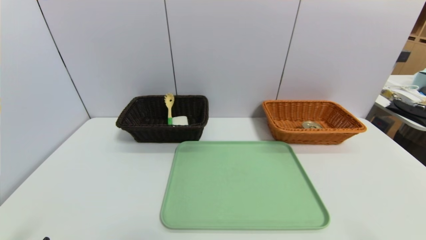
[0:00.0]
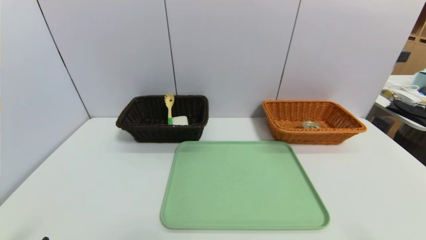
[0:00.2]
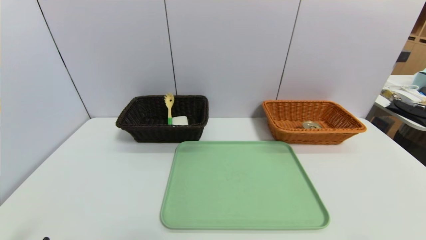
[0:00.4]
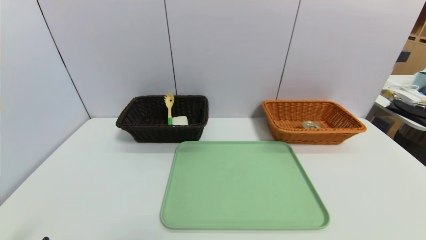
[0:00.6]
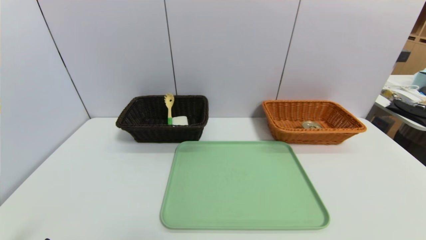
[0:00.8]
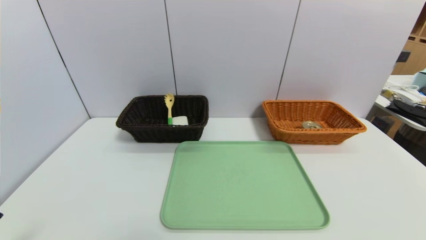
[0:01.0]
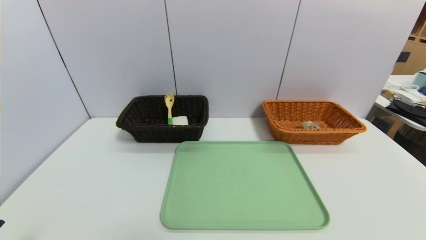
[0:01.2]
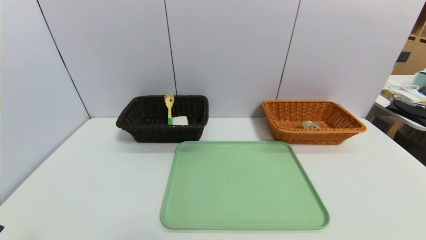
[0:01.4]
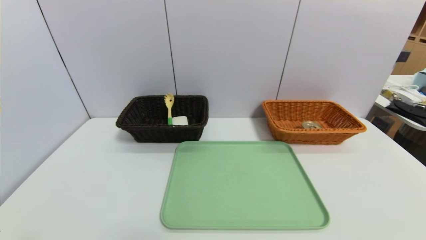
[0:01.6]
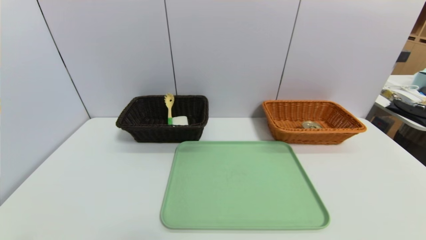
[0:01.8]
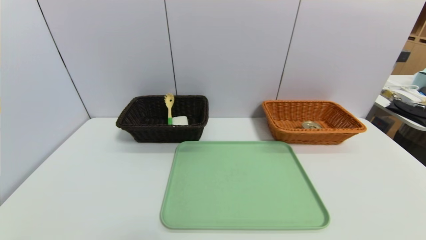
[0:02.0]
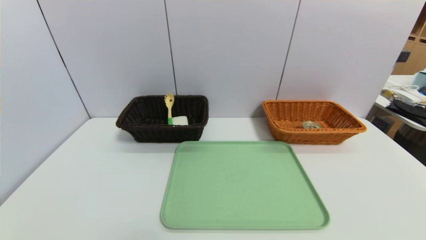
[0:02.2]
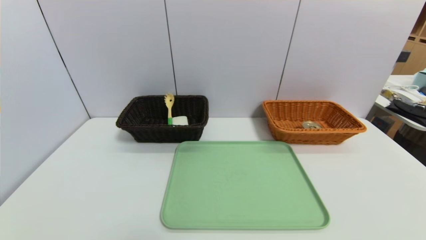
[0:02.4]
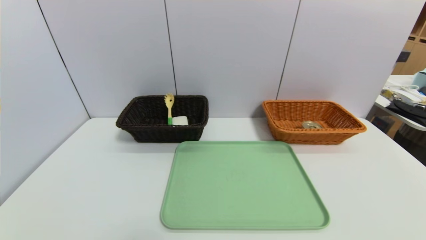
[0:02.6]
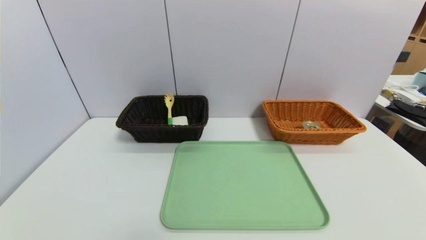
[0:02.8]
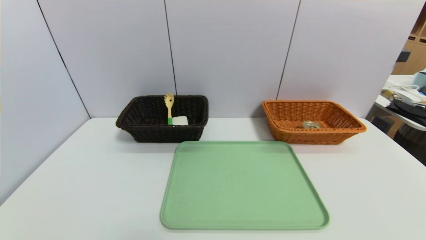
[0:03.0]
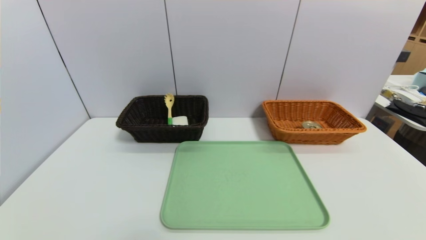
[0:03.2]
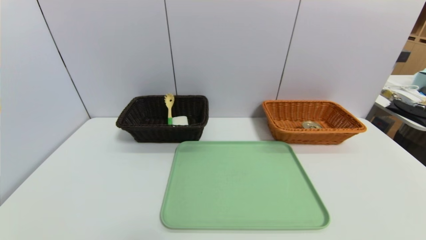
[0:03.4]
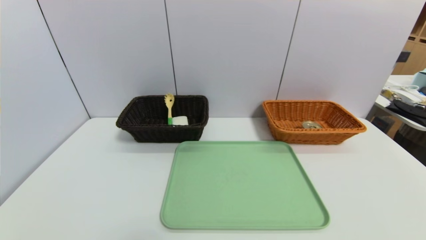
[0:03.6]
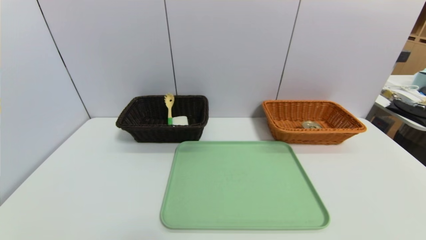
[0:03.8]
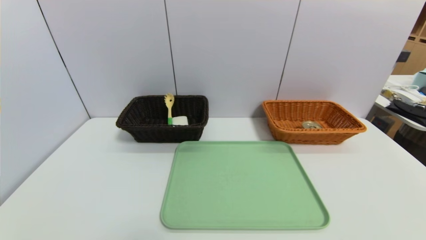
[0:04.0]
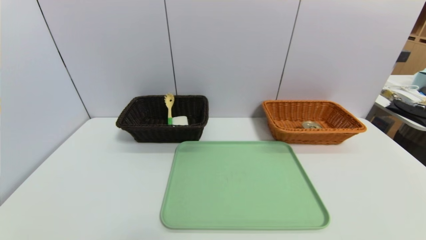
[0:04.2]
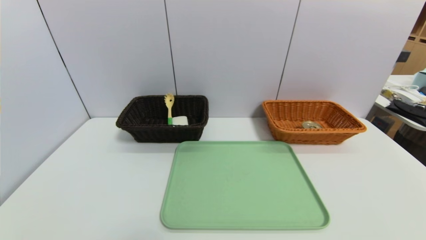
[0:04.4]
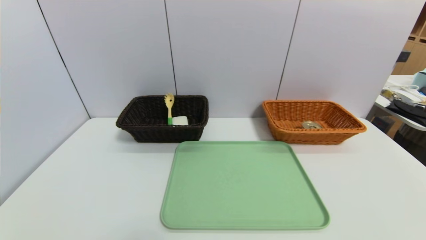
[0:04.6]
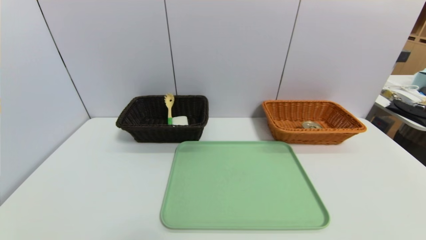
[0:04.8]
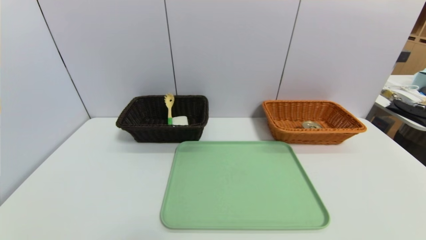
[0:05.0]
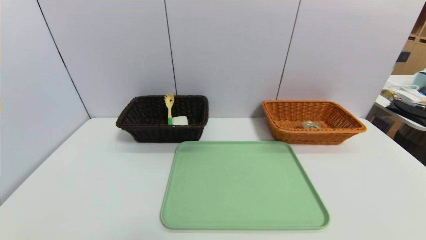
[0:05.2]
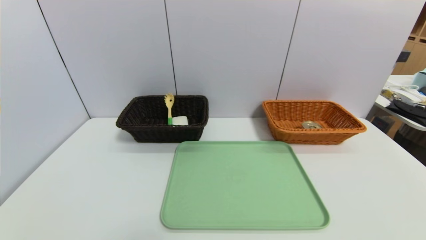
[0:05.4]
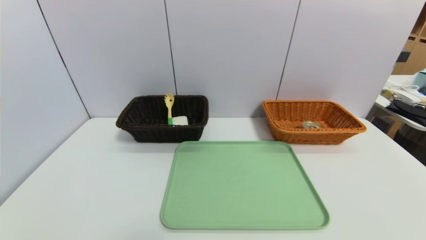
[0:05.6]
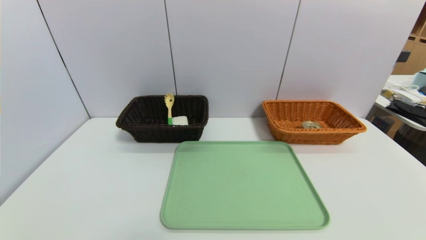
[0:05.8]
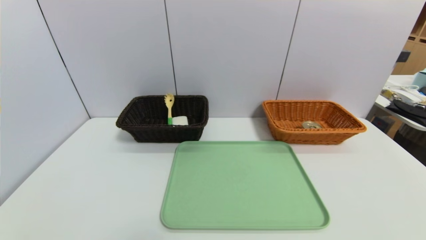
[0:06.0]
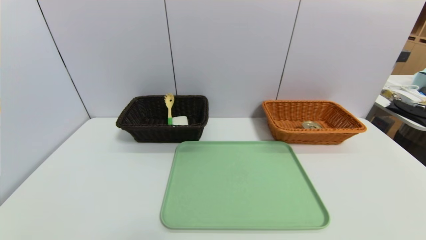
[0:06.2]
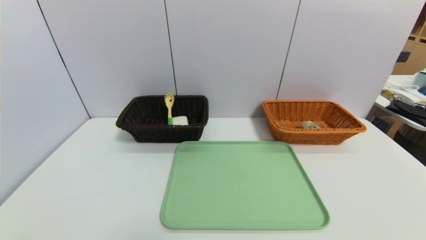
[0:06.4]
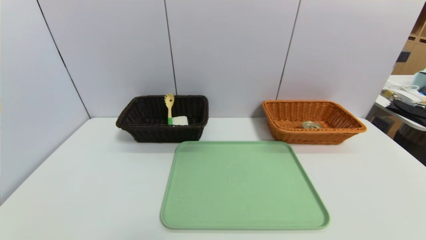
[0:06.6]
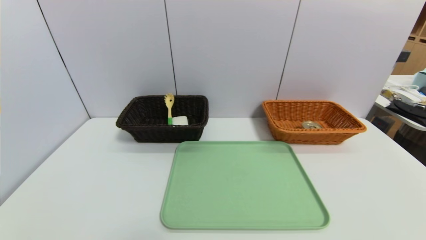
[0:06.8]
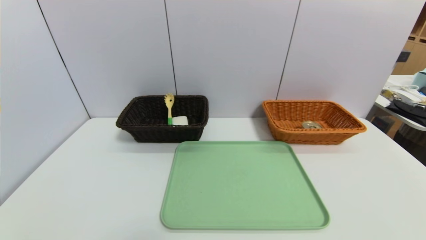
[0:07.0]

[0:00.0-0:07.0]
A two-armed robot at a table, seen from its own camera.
Task of the whole recording: place the food in the right basket with the right gripper, and place the non food items in the left basket with the left gripper.
0:05.6 to 0:07.0: The two grippers keep their place.

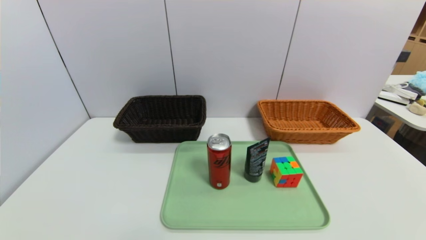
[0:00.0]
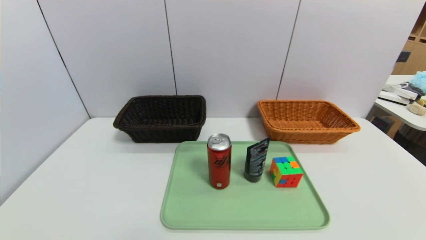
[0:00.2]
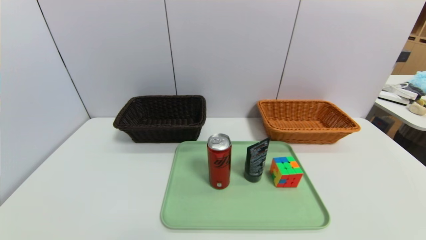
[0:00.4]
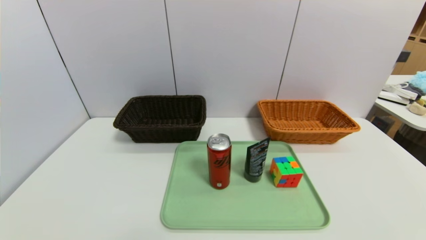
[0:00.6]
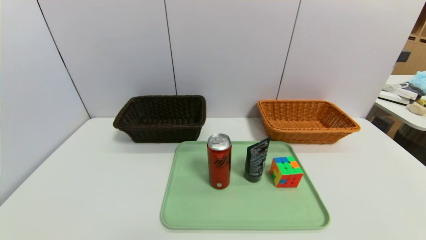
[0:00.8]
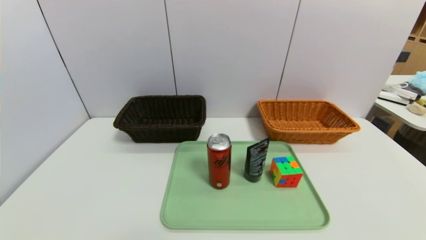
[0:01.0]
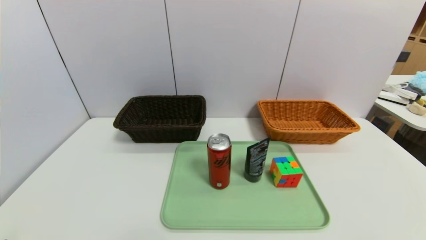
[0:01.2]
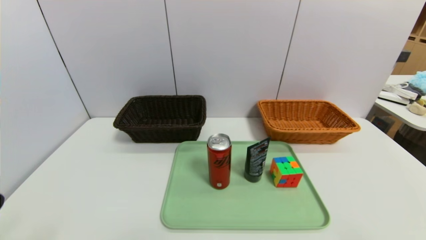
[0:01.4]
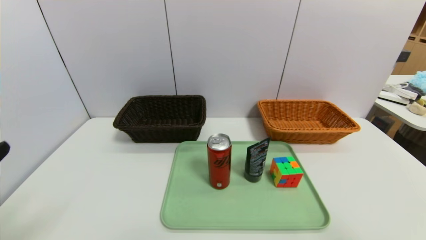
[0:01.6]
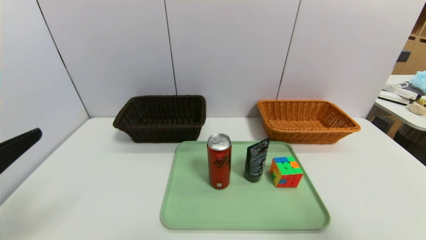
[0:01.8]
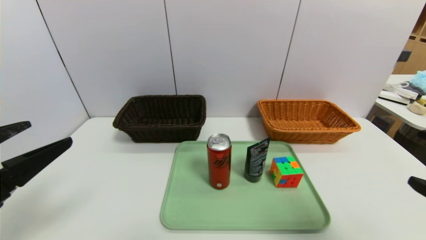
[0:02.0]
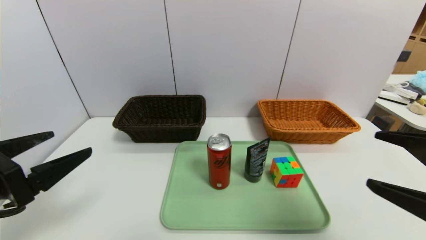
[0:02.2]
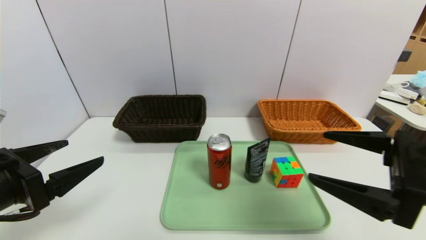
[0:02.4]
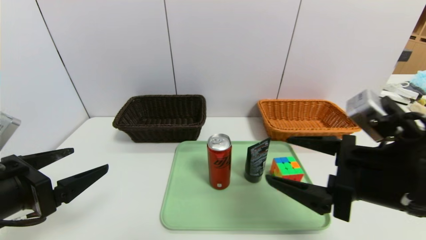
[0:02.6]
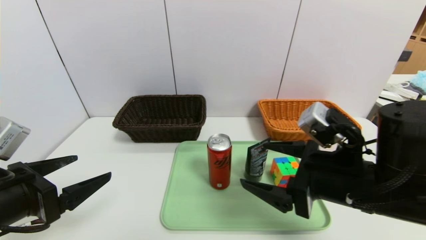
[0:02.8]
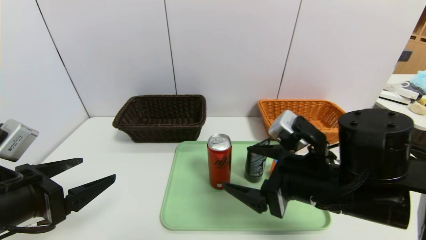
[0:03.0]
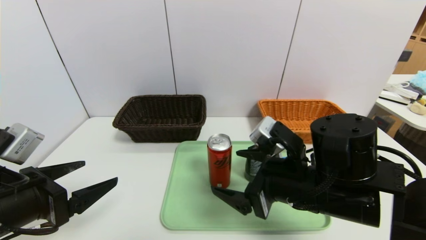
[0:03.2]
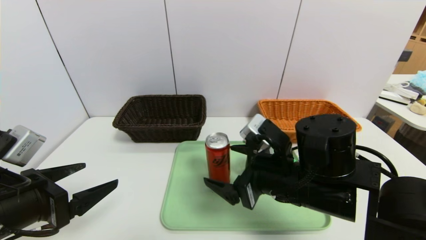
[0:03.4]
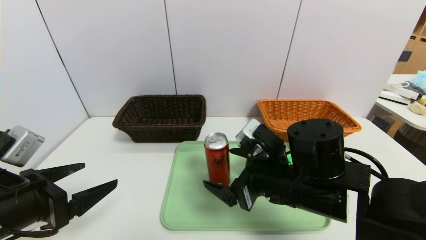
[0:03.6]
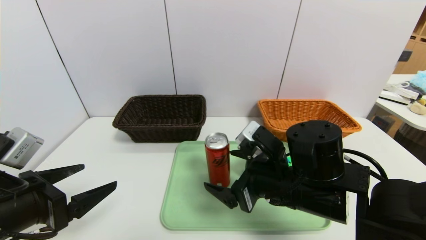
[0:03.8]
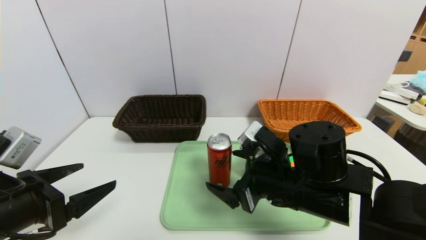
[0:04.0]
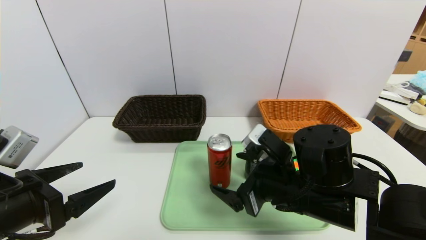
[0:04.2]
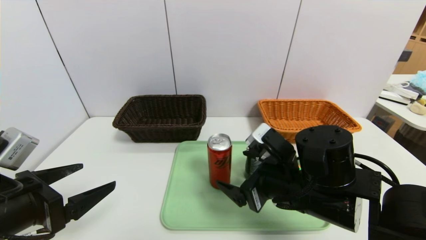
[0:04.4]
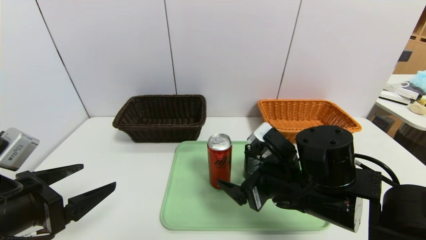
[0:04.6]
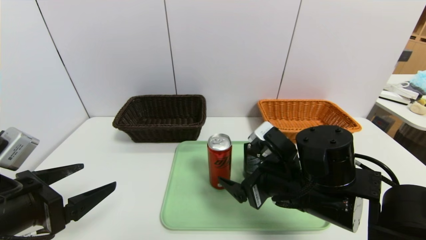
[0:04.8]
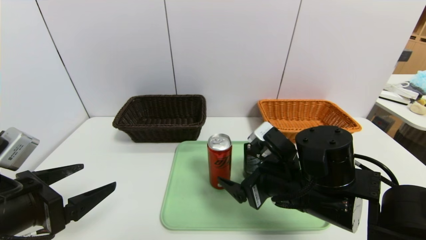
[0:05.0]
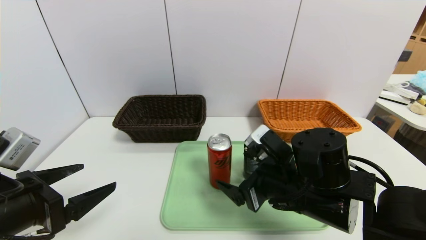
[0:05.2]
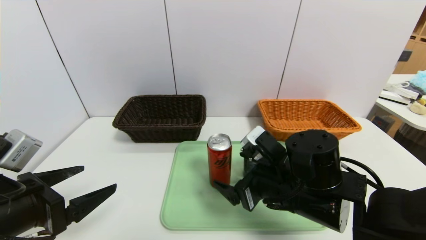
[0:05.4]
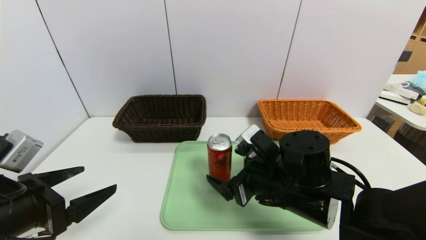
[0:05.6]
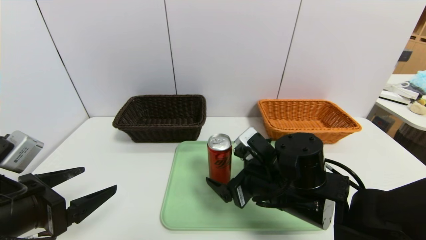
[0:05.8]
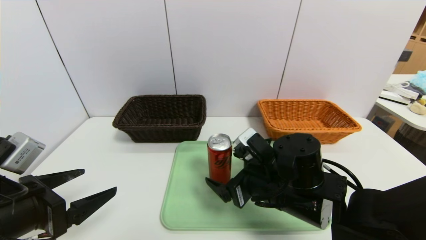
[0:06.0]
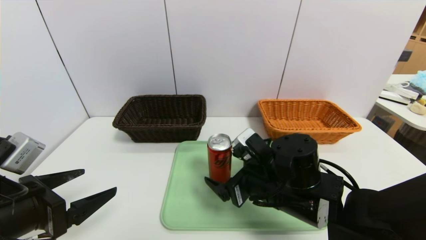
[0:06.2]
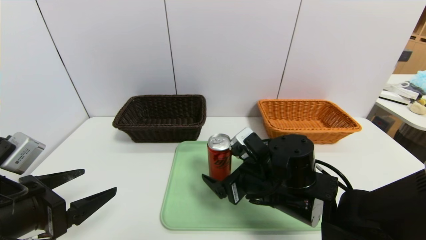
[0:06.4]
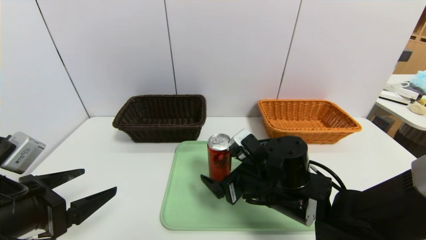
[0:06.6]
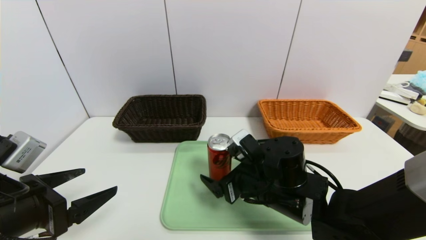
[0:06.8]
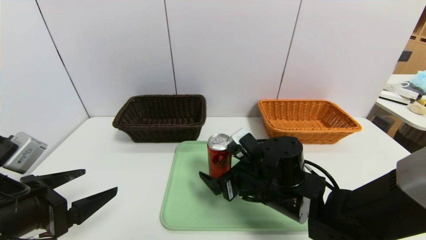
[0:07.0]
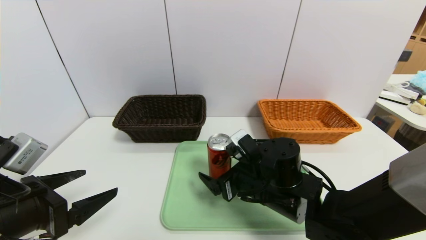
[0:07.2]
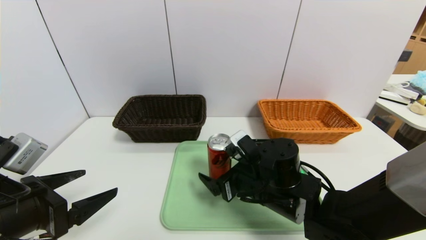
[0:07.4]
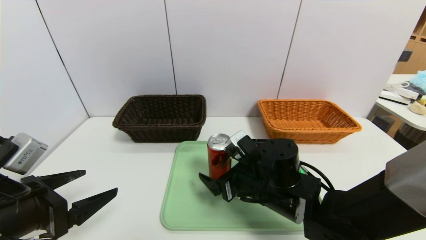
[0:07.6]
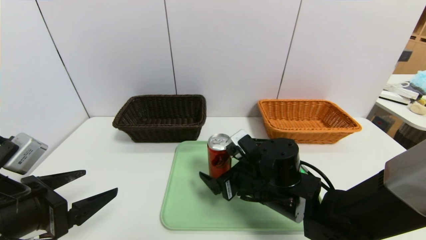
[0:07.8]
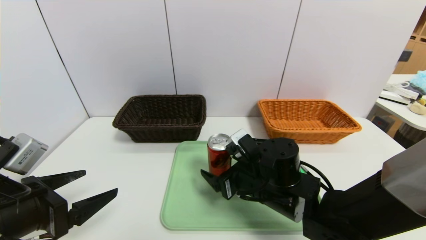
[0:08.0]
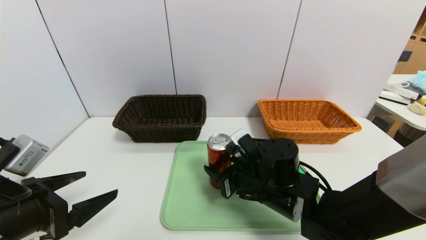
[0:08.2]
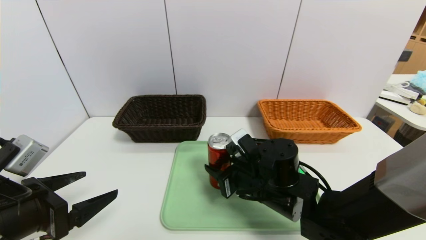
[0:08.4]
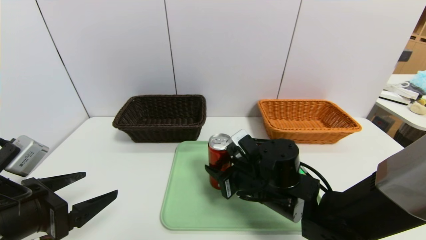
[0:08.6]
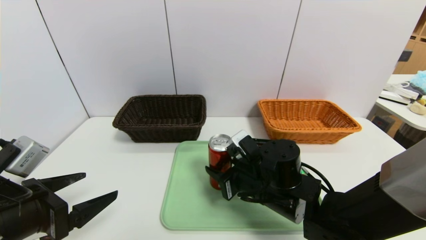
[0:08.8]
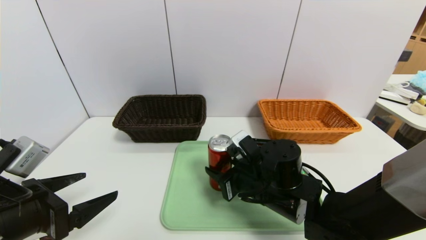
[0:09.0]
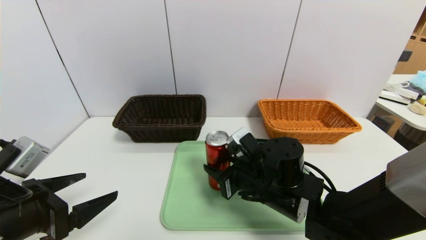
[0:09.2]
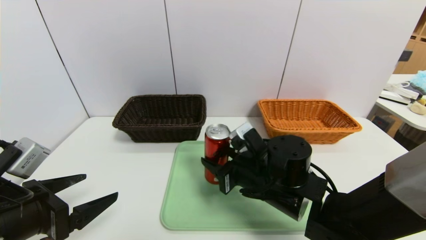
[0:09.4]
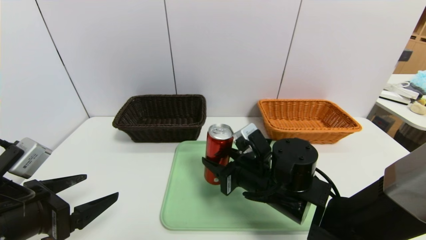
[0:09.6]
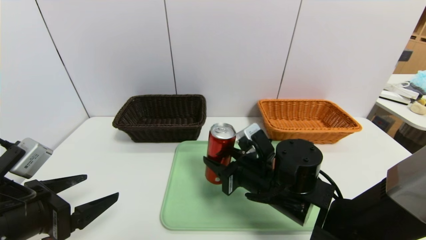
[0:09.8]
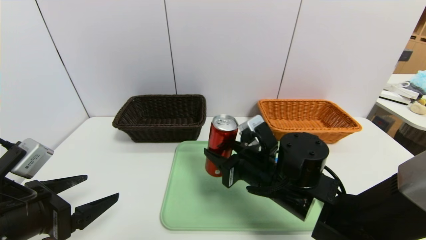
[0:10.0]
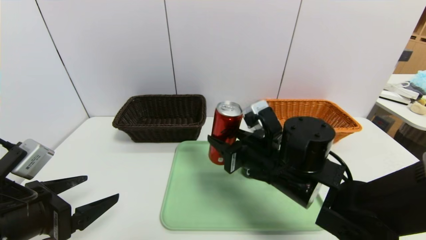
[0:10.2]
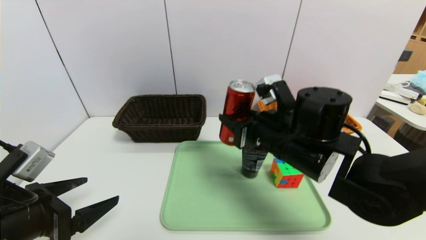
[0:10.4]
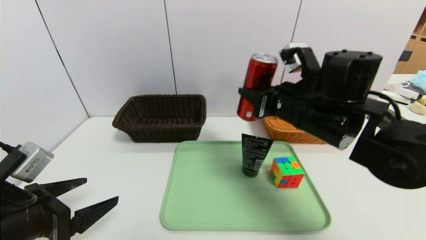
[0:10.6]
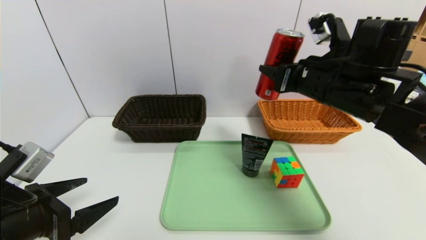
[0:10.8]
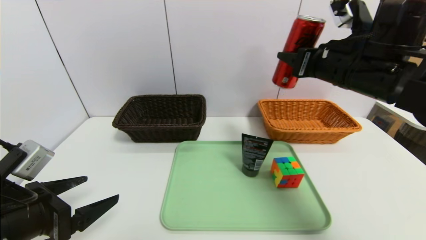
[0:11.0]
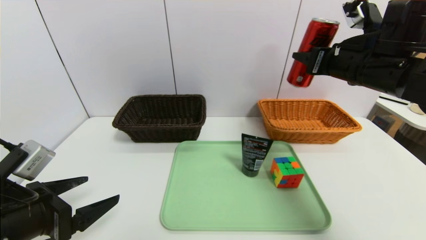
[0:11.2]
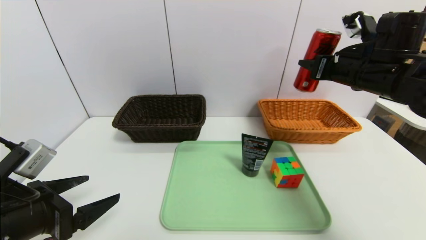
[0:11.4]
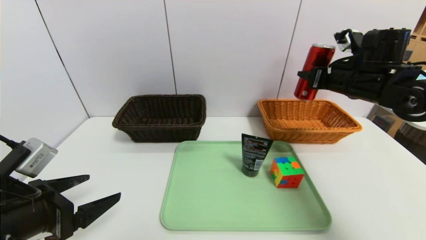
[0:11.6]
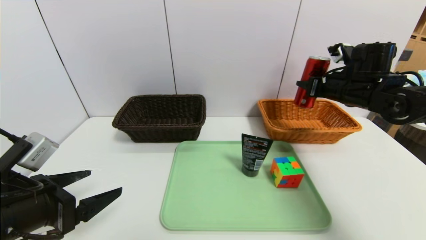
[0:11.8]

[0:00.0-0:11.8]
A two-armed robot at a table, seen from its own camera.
Task of the whole recording: place the food in the right basket with the right gripper, and place the non food items in the left basket with the left gripper.
0:01.4 to 0:03.0: The right gripper shifts about 25 cm forward and to the left, while the left gripper moves forward, approximately 10 cm.
0:03.0 to 0:04.4: There are only small adjustments of the grippers.
0:04.4 to 0:06.0: The grippers make only small movements.
0:06.0 to 0:07.4: The grippers make only small movements.
0:07.4 to 0:08.8: The right gripper closes.
0:08.8 to 0:10.4: The right gripper moves upward, roughly 10 cm.
0:10.4 to 0:11.8: The right gripper moves to the right and forward, approximately 20 cm.
